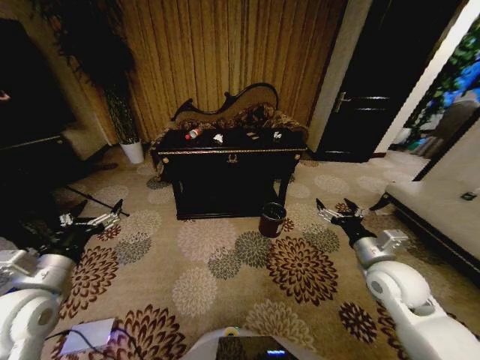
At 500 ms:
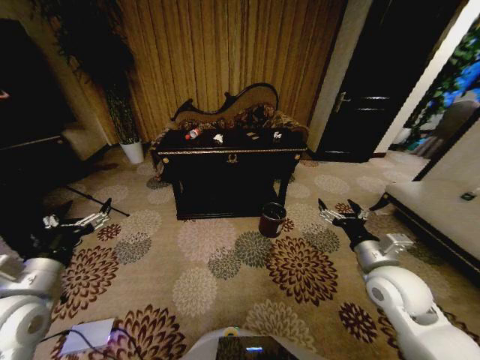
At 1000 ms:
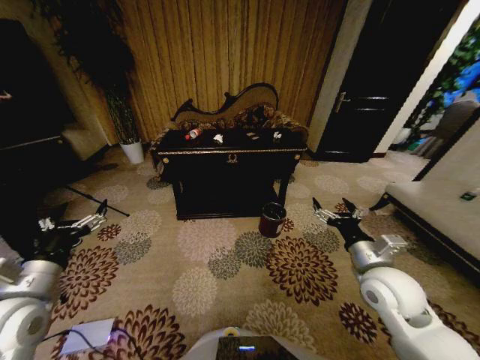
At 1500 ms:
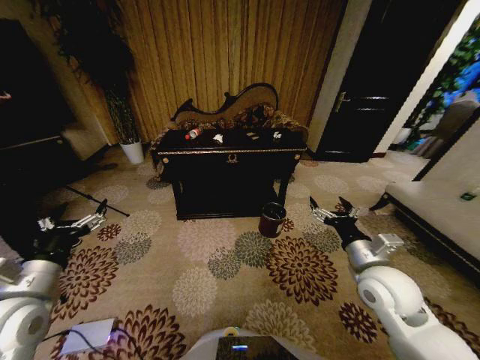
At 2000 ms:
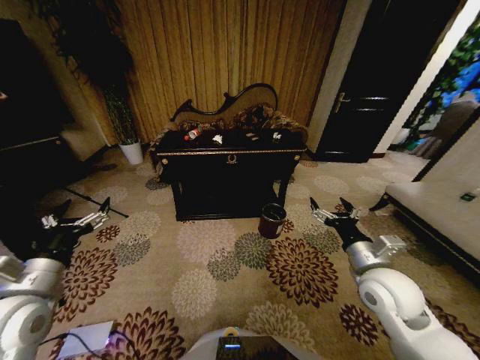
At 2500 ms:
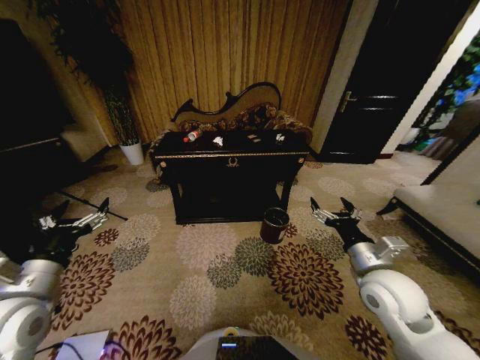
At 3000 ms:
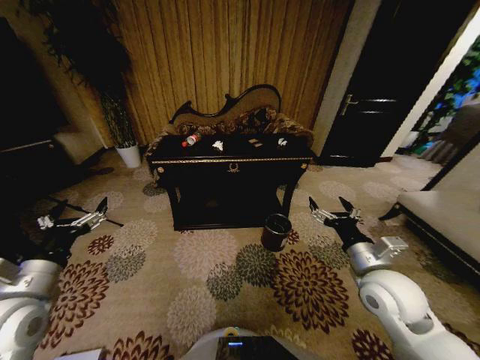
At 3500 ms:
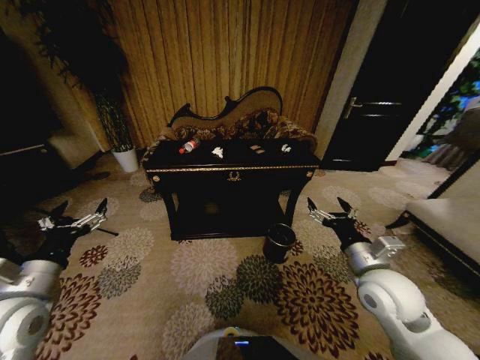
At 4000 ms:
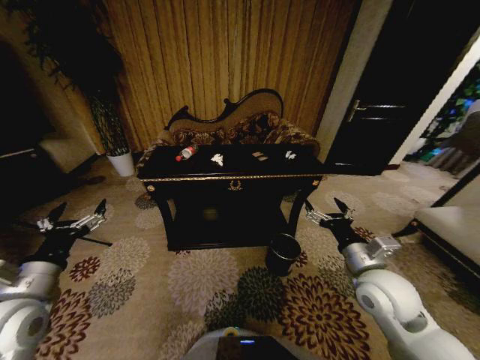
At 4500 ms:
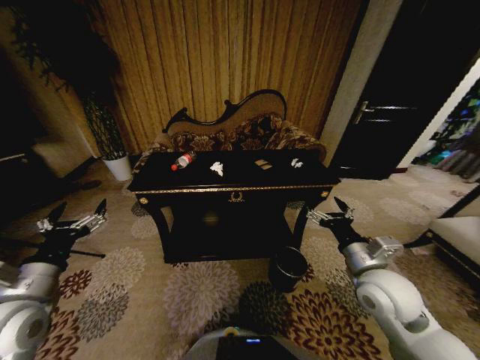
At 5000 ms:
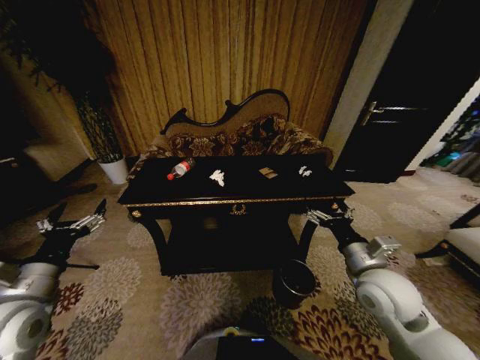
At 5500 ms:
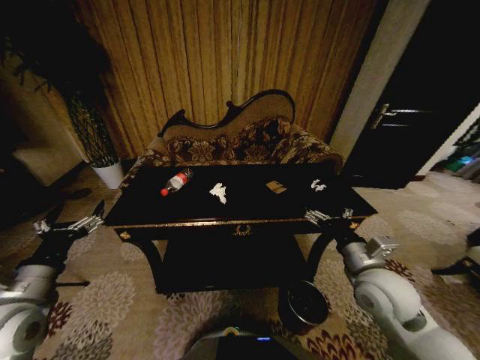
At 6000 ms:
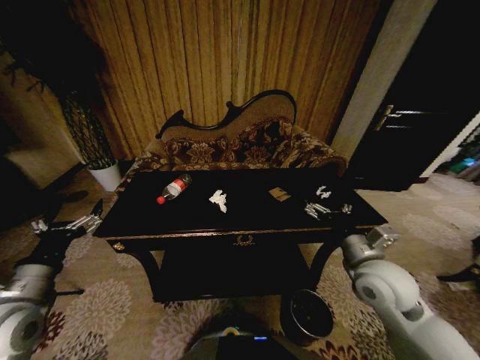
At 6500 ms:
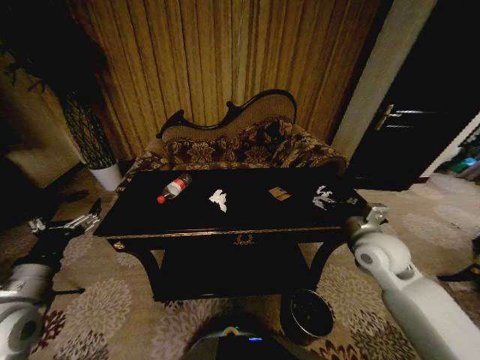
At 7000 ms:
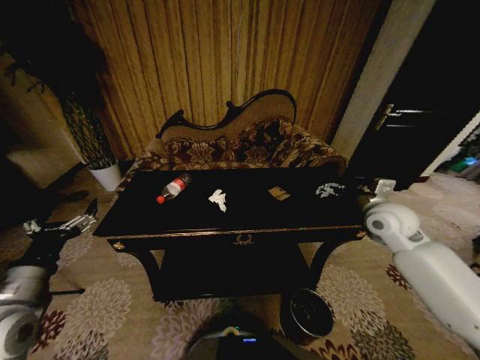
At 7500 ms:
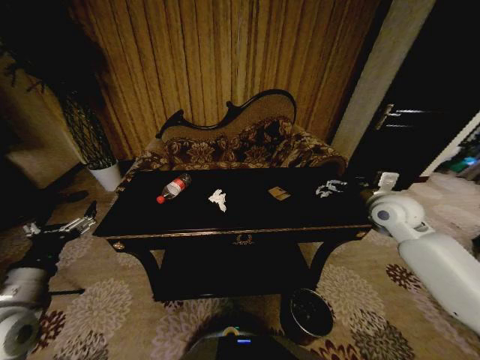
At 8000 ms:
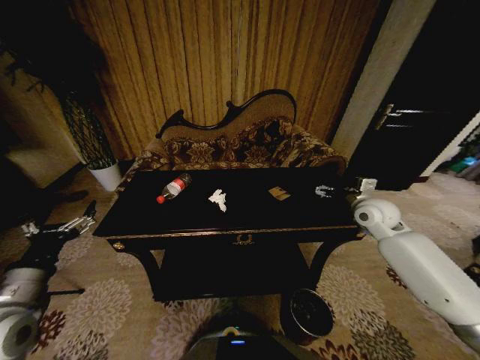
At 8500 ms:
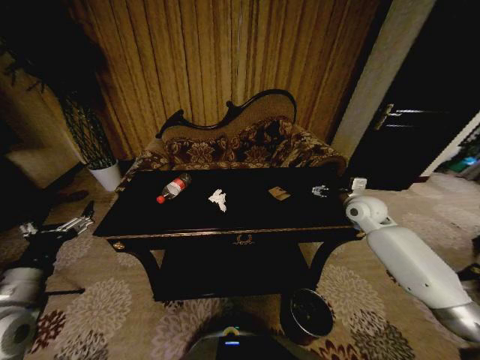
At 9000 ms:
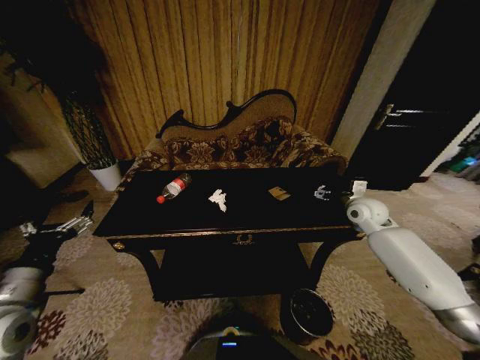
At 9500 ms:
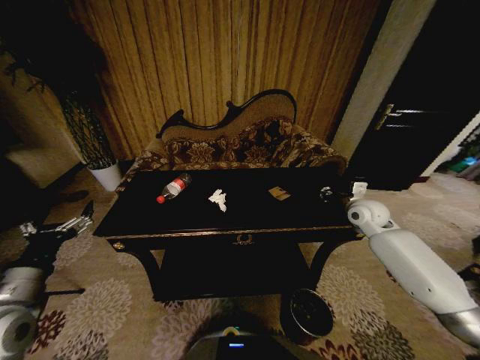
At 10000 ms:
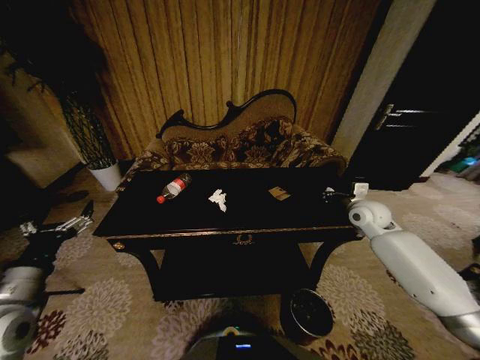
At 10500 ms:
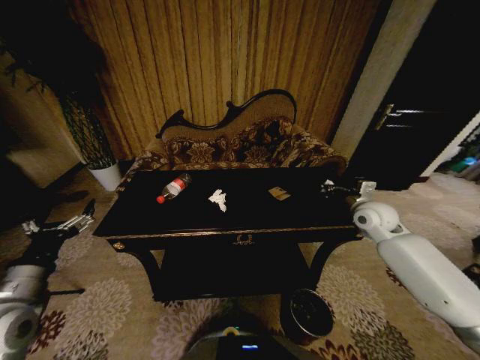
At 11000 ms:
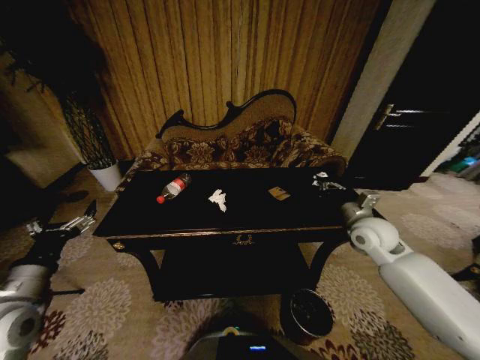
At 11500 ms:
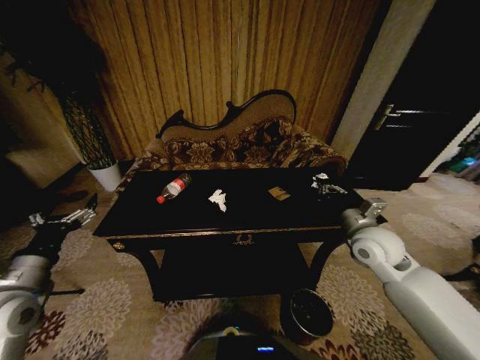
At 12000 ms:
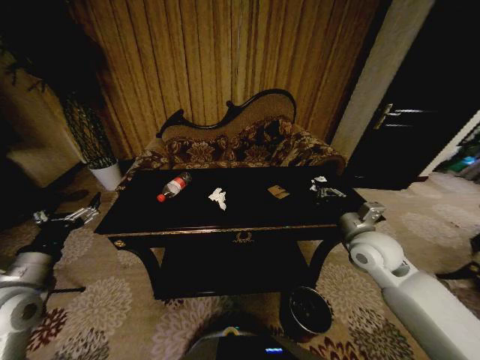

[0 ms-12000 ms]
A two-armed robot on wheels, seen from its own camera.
Task of the whole recording: Move to the front of the table and place the trash on the table into the trash bin.
6000 ms to 8000 ms: The right gripper is displaced forward and to the right by approximately 20 cm.
8000 ms to 10000 ms: The right gripper closes.
10000 ms to 12000 ms: The right gripper shifts approximately 15 cm backward and to the left.

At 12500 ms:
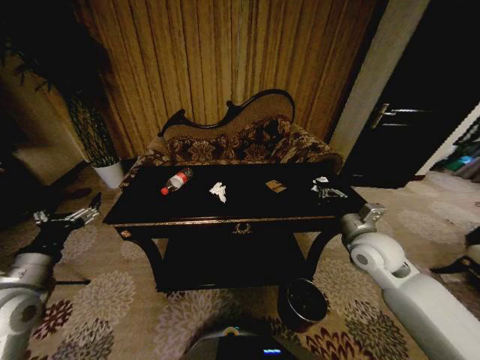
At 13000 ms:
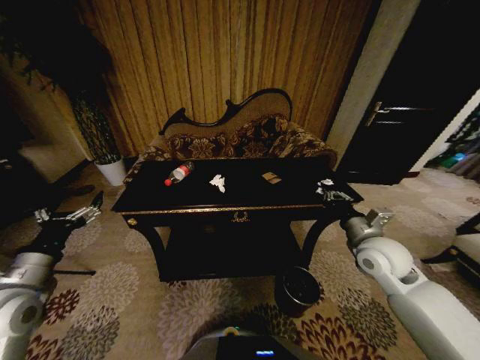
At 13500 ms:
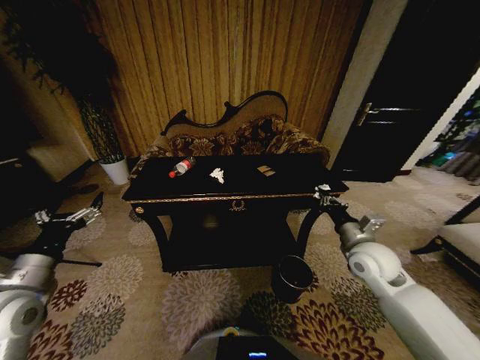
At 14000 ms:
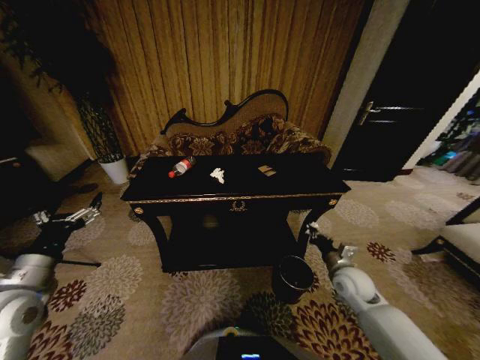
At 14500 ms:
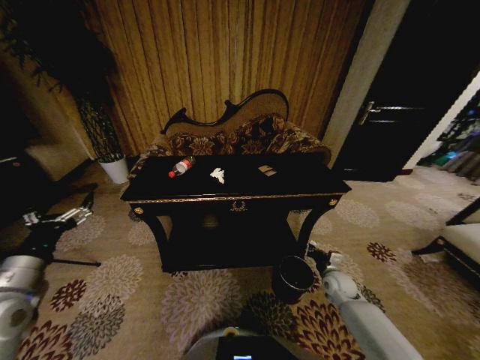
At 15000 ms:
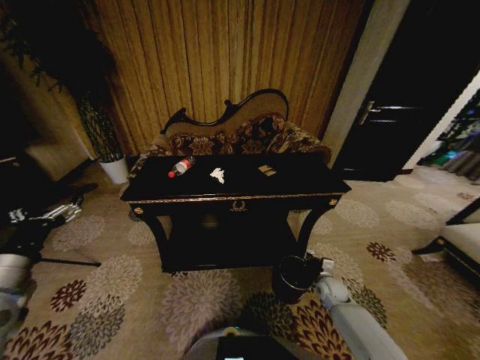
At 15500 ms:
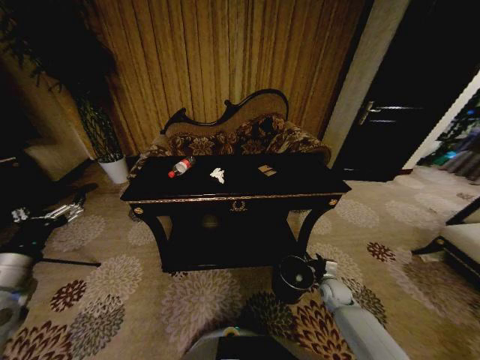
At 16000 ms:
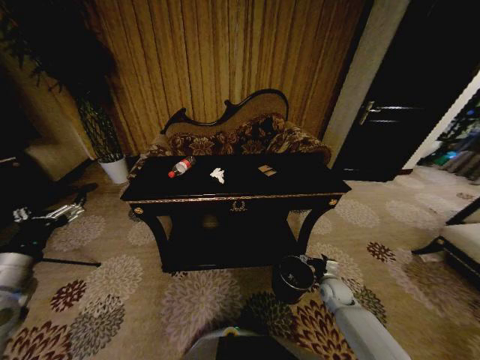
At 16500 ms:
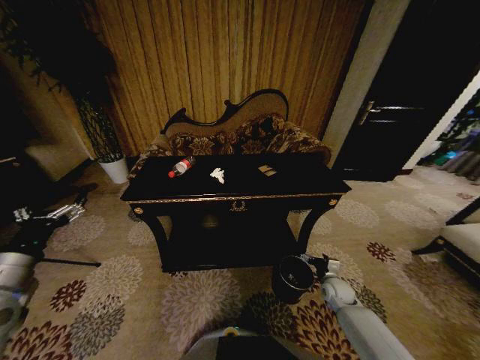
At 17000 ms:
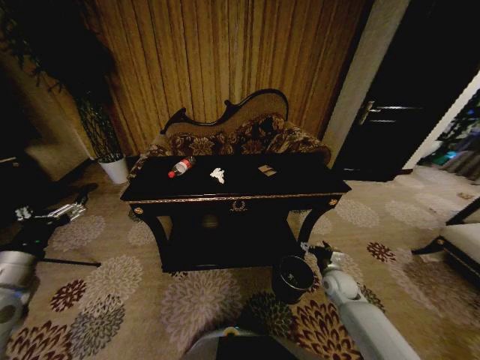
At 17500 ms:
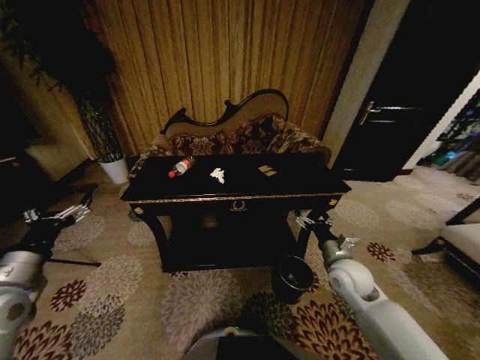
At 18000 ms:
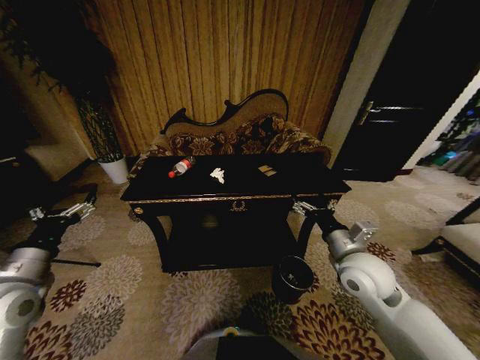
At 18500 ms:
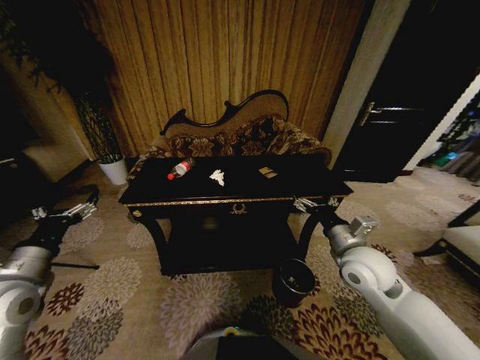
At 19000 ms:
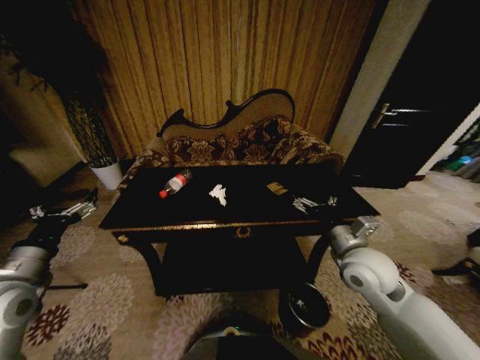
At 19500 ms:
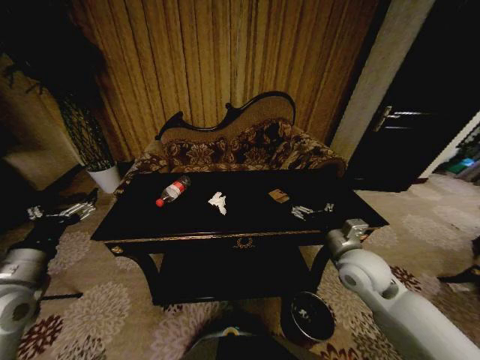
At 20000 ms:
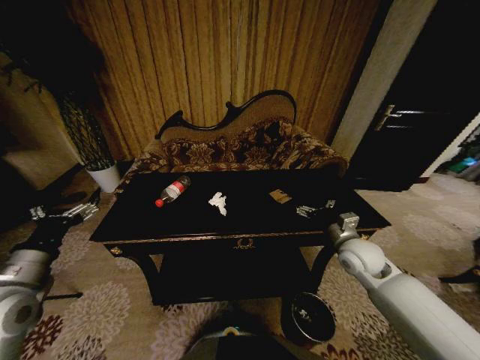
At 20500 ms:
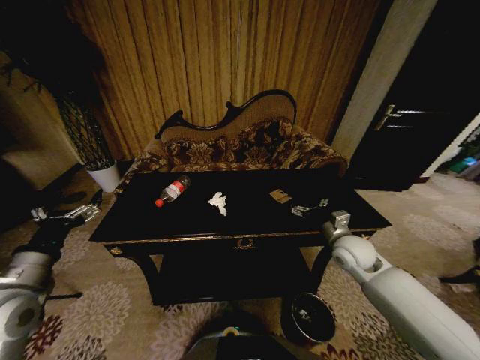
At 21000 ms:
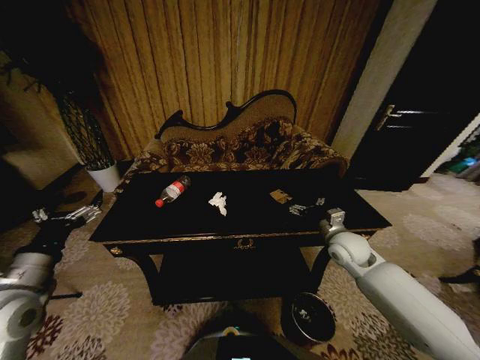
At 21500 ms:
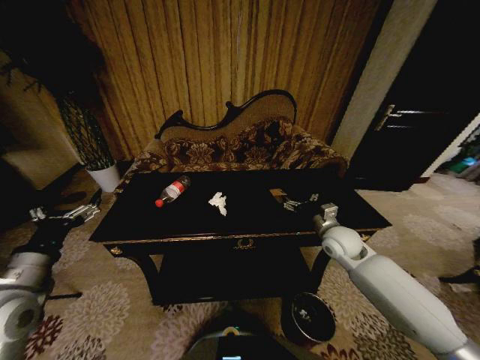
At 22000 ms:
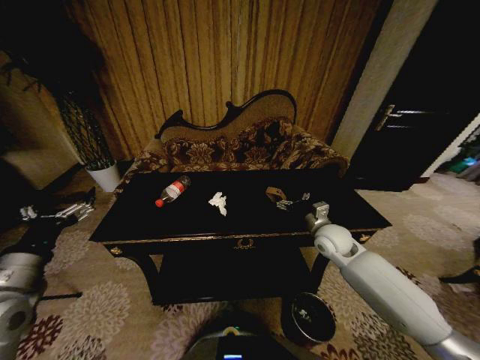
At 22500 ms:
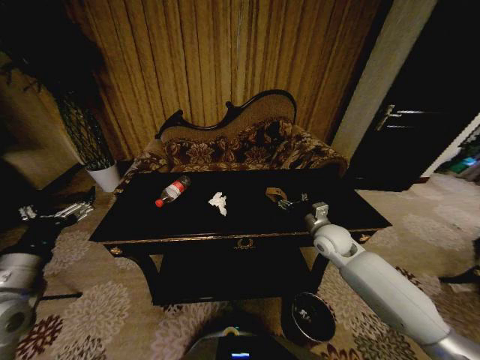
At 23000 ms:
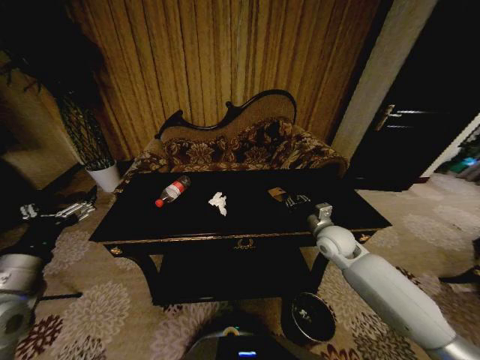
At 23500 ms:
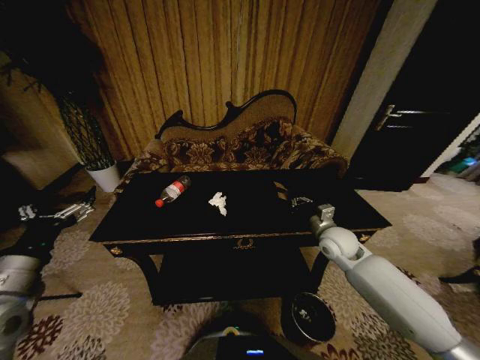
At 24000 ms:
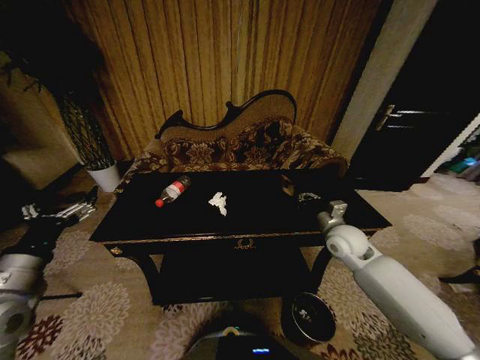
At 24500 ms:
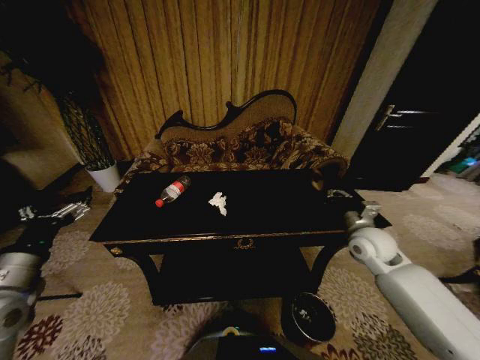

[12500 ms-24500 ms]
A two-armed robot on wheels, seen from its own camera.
Task of the whole recording: Move to the front of the table and place the trash on the table into the trash bin.
12500 ms to 14500 ms: The right gripper goes some 25 cm downward.
14500 ms to 16500 ms: The right gripper opens.
16500 ms to 18500 ms: The right gripper moves upward, some 30 cm.
18500 ms to 20500 ms: The right gripper travels forward and downward by some 10 cm.
20500 ms to 22500 ms: The right gripper shifts by roughly 5 cm.
22500 ms to 24500 ms: The right gripper shifts roughly 5 cm to the right, and closes up.

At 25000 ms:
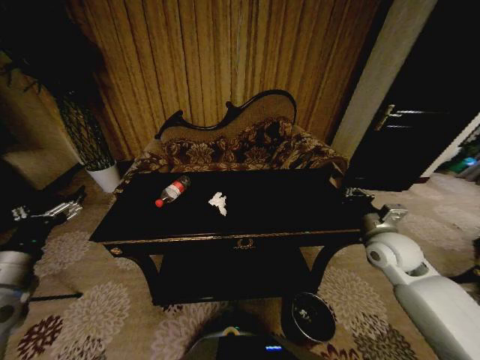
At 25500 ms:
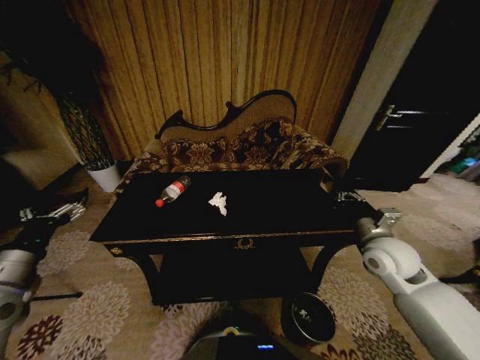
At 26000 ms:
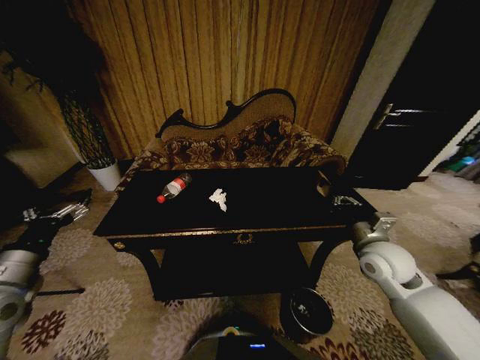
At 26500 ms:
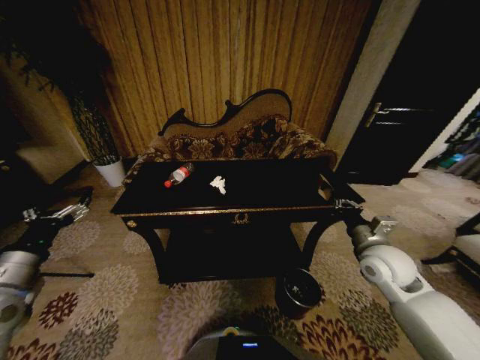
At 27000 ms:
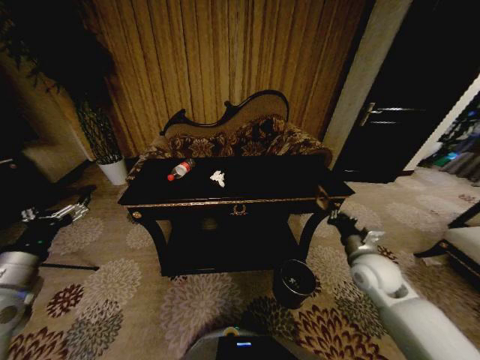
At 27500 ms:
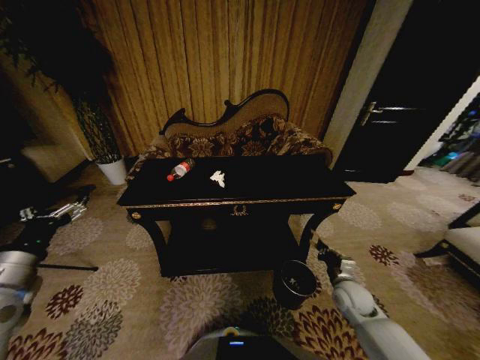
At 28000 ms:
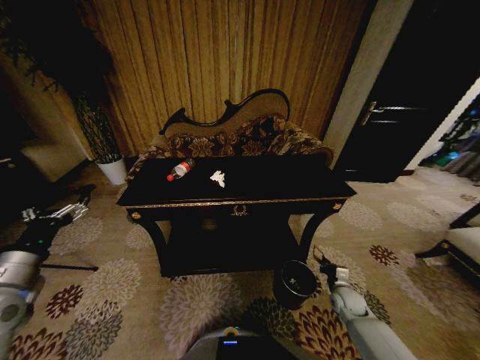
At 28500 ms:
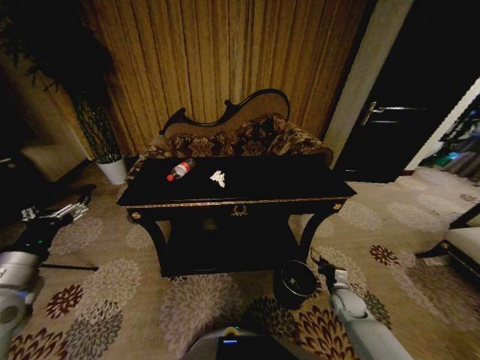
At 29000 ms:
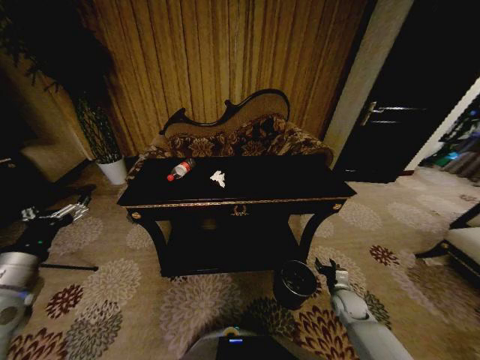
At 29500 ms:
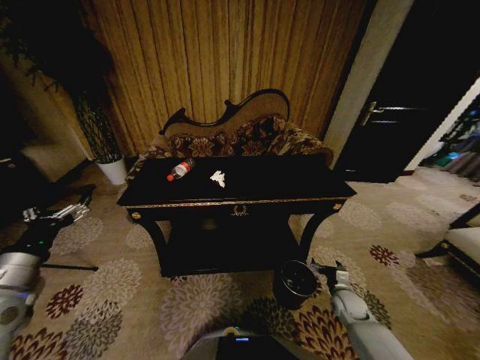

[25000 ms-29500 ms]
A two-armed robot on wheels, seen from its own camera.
Task of the whole recording: Move to the front of the table and place the trash on the table into the trash bin.
25000 ms to 27000 ms: The right gripper shifts roughly 5 cm downward.
27000 ms to 29500 ms: The right gripper moves downward, about 20 cm, and opens its fingers.
